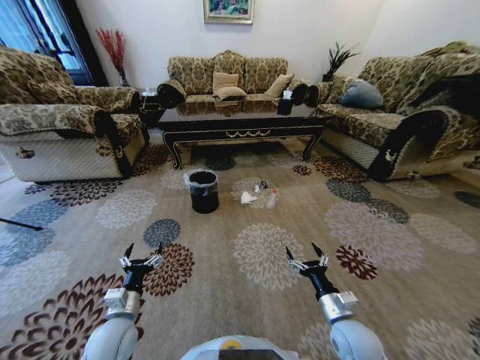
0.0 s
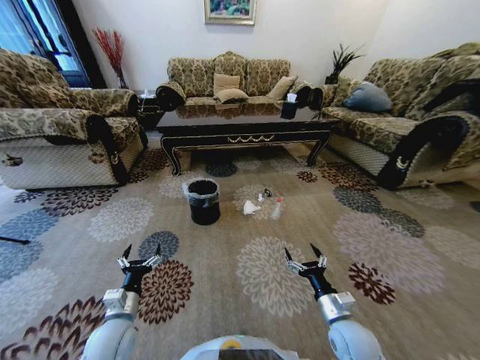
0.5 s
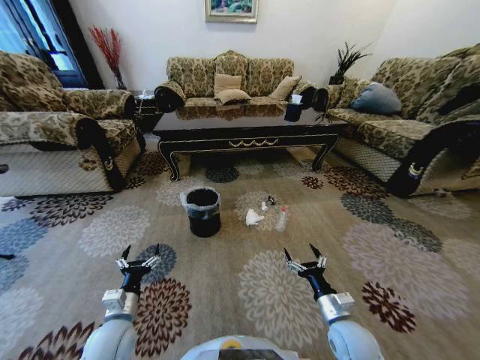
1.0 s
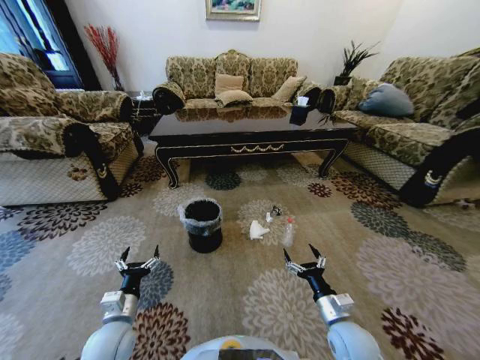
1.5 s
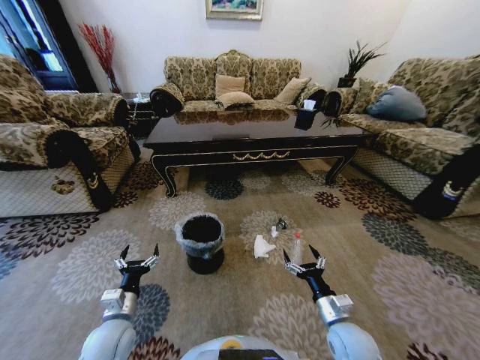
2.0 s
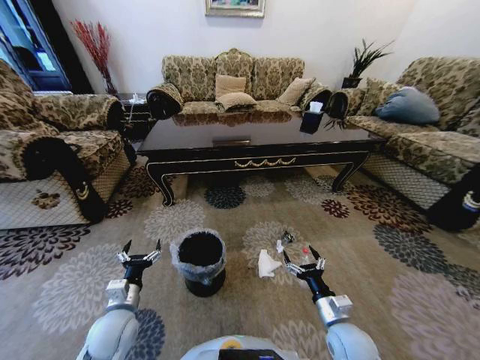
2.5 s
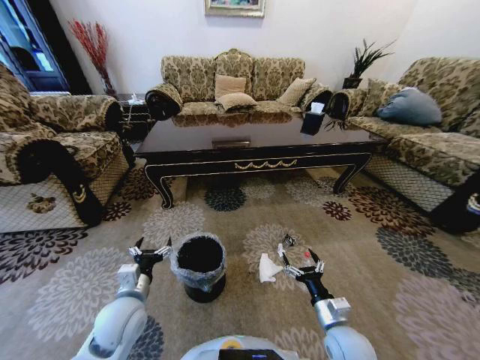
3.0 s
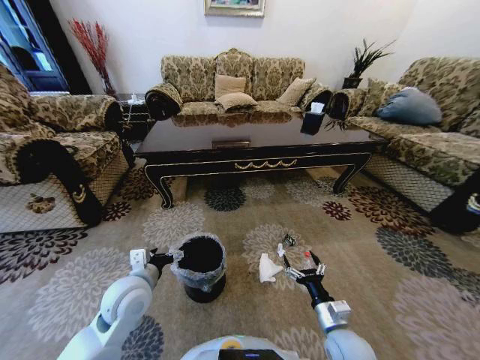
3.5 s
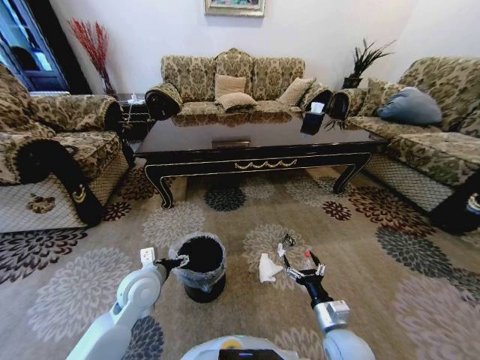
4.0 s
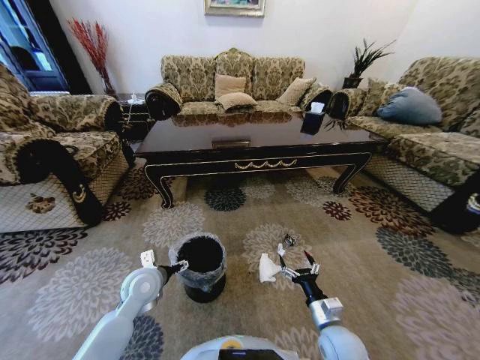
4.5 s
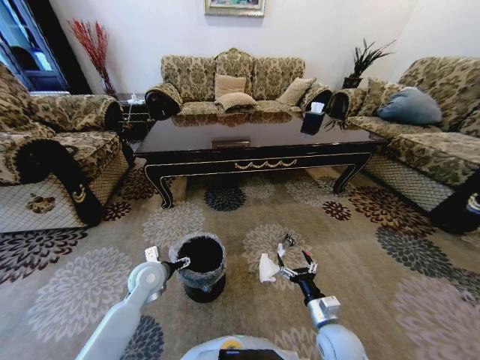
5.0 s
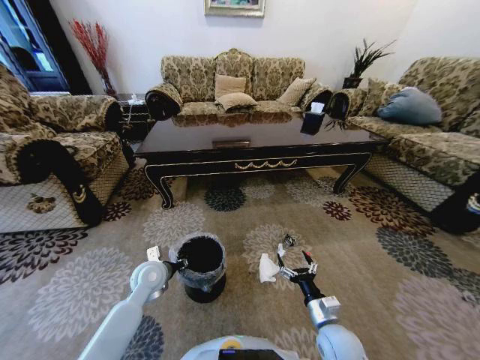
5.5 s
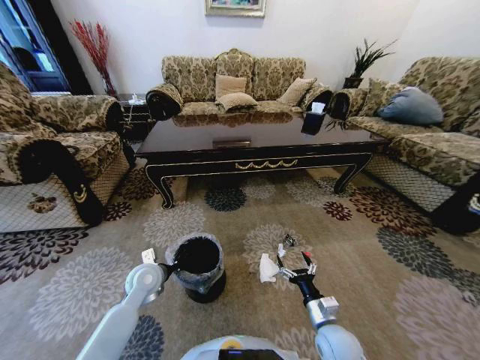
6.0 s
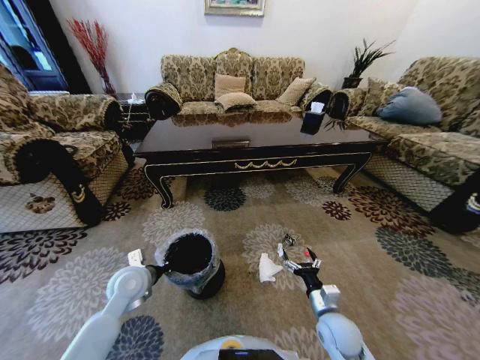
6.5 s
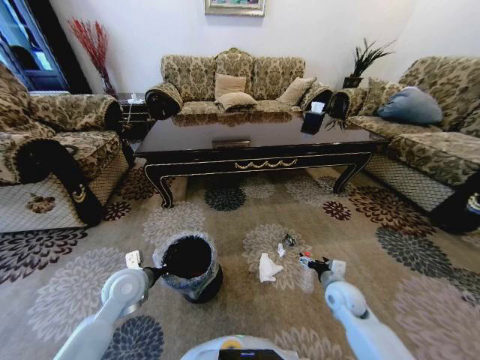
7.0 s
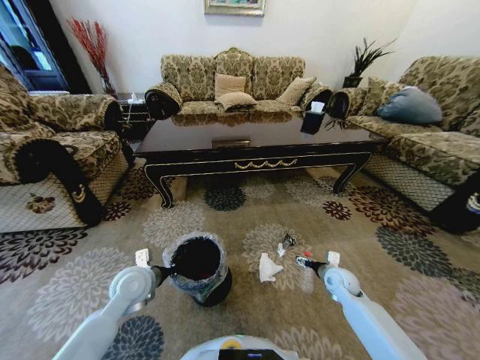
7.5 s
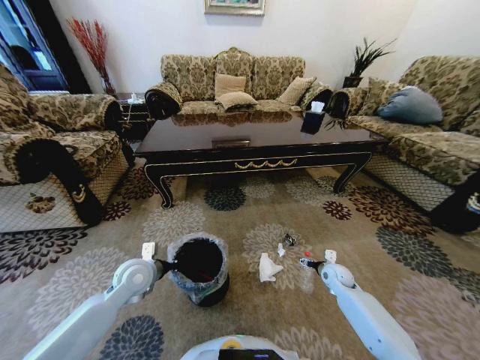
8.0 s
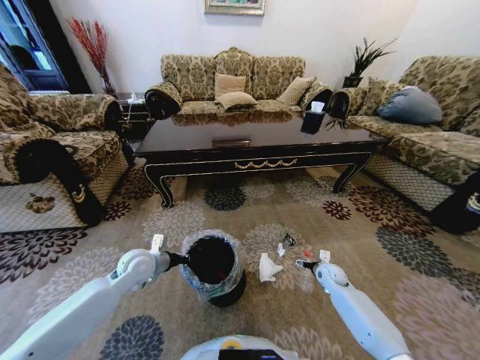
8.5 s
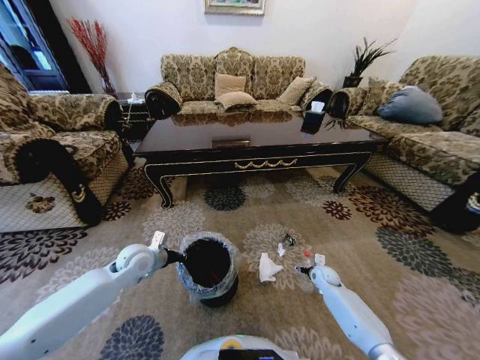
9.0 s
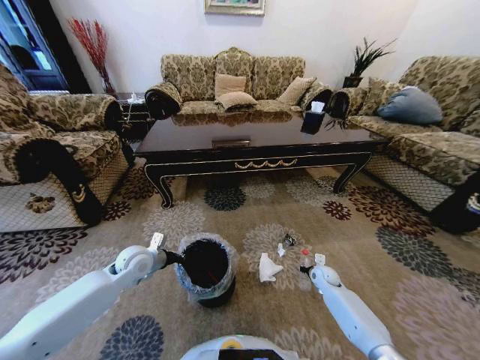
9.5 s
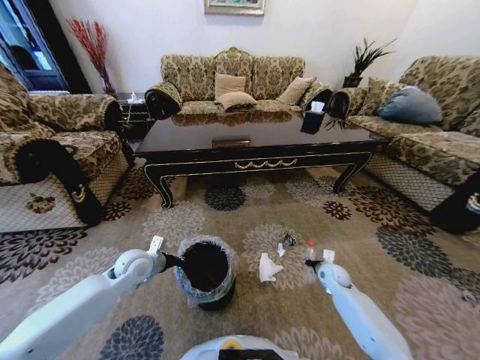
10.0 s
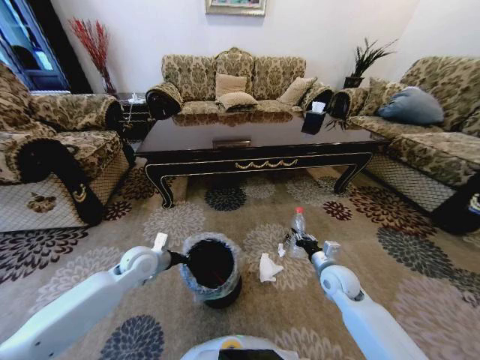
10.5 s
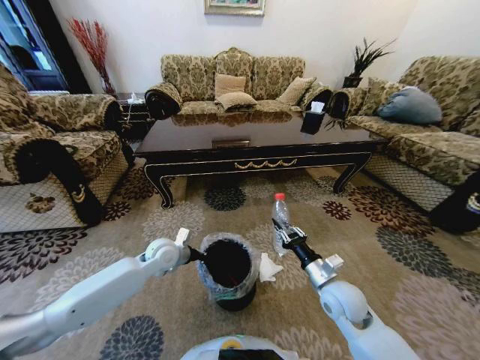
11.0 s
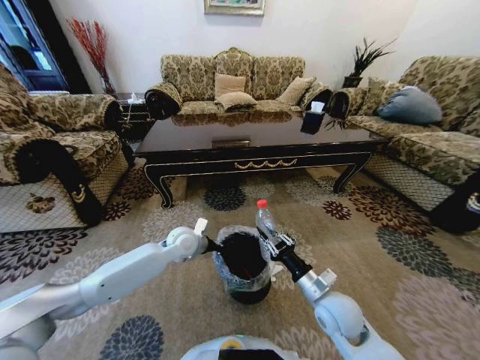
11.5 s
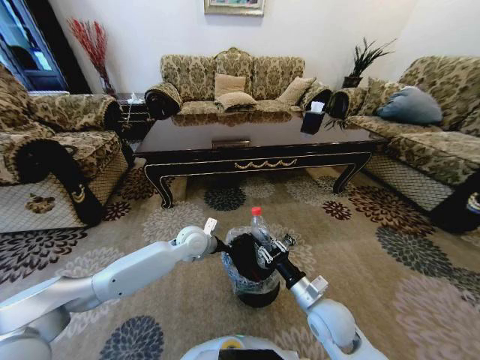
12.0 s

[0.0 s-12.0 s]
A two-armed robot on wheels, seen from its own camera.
Task of the whole recording: Move to the front of the table and pick up the trash from the floor, then place it into the trash bin.
2.0 to 4.0 s: The left gripper shifts about 15 cm forward, upward and to the right.
4.0 to 6.0 s: The left gripper ends up about 5 cm from where it was, and closes.
6.0 to 8.0 s: The right gripper travels forward and to the right by roughly 25 cm.
8.0 to 10.0 s: The right gripper closes.
10.0 to 12.0 s: The left gripper travels to the right and forward by about 15 cm. The right gripper shifts about 25 cm to the left, backward and upward.

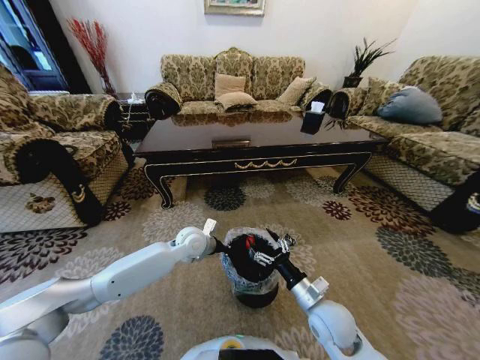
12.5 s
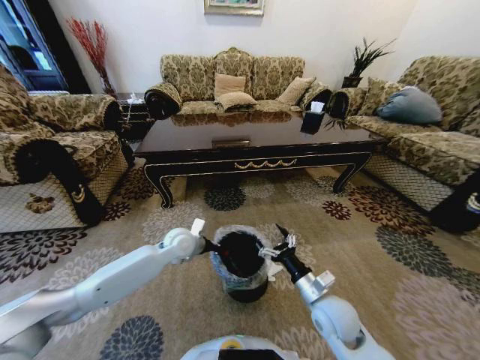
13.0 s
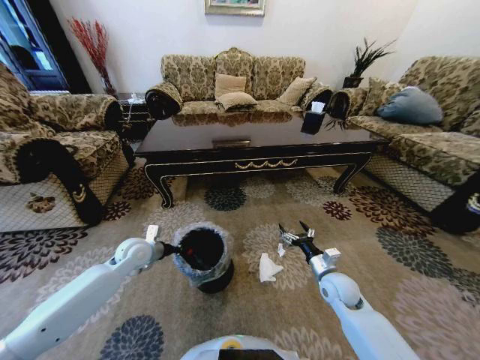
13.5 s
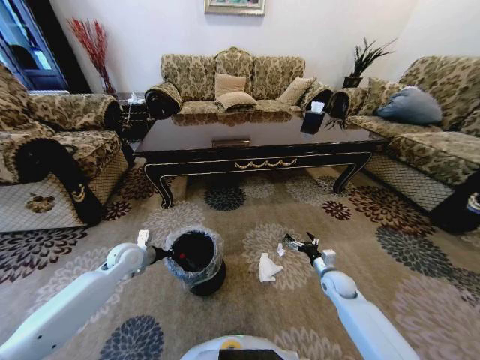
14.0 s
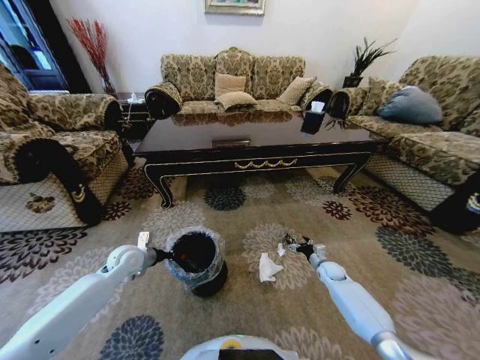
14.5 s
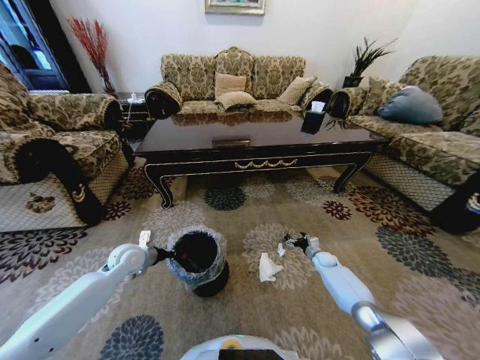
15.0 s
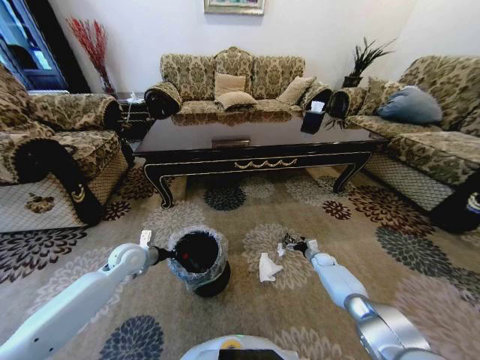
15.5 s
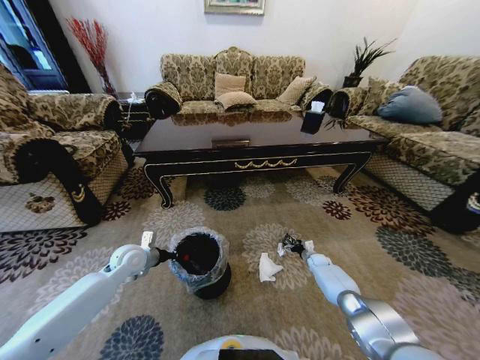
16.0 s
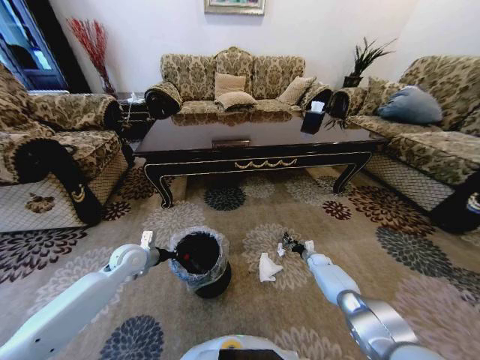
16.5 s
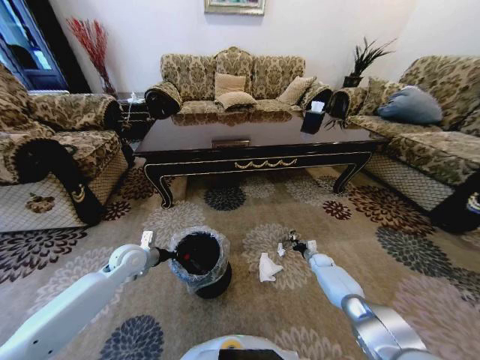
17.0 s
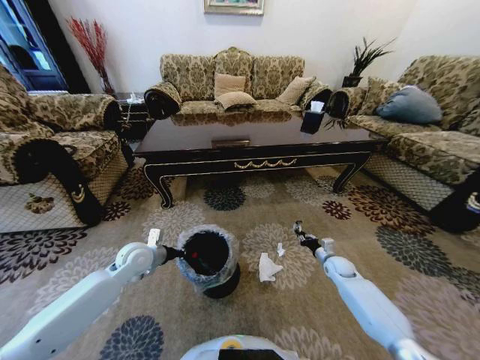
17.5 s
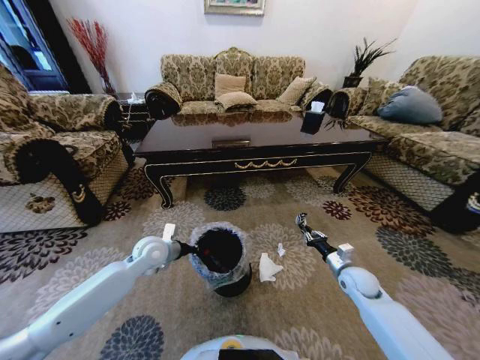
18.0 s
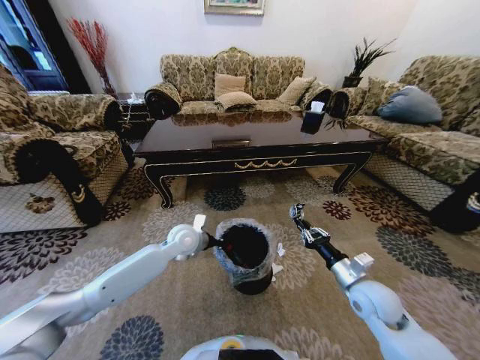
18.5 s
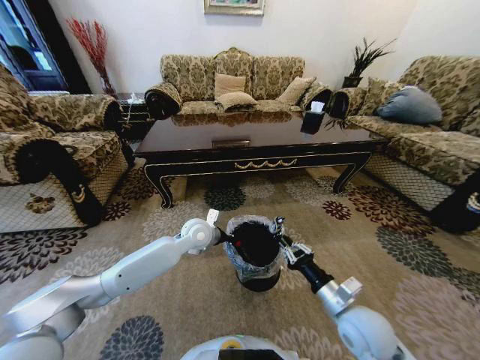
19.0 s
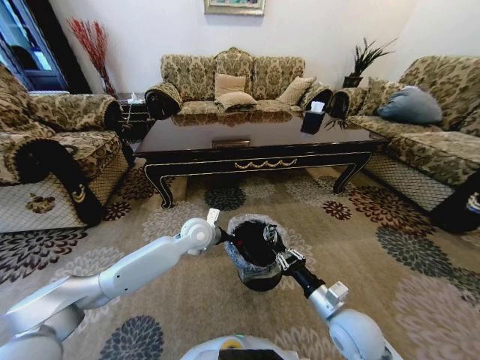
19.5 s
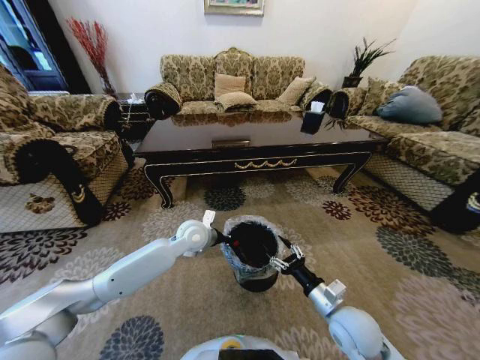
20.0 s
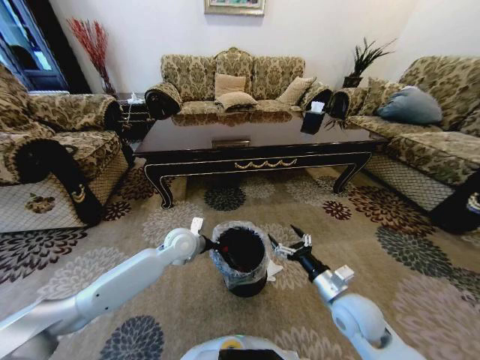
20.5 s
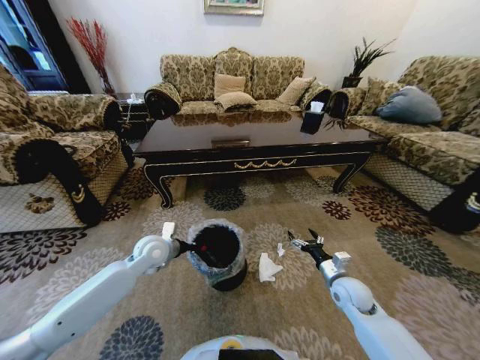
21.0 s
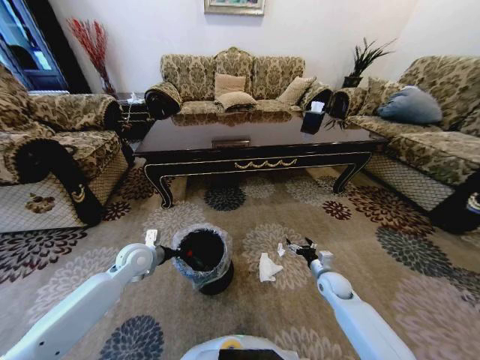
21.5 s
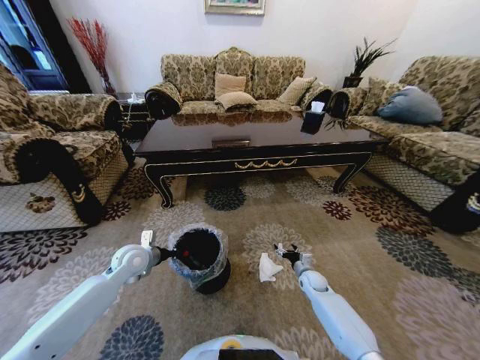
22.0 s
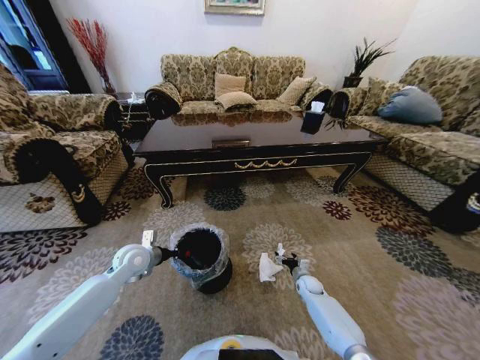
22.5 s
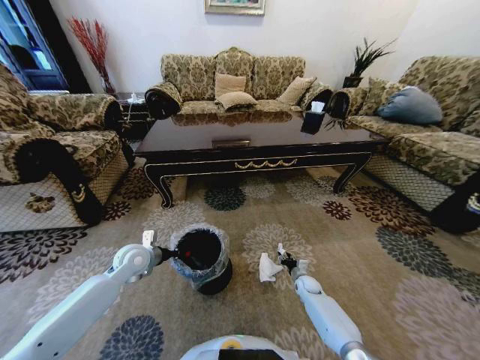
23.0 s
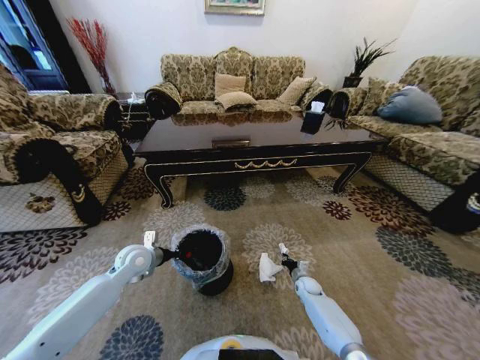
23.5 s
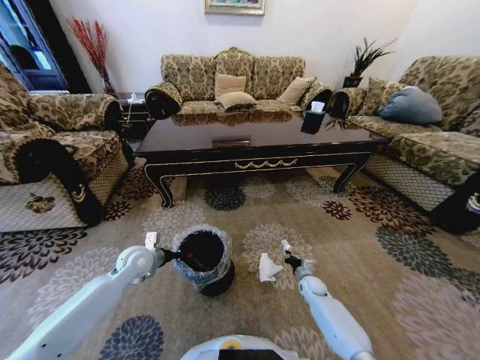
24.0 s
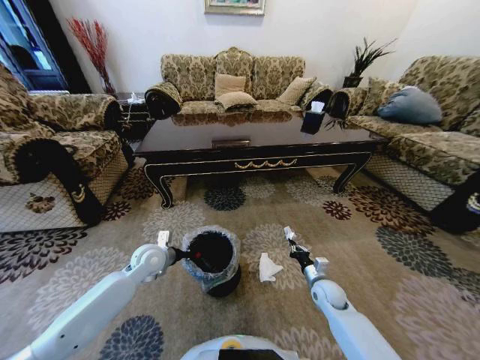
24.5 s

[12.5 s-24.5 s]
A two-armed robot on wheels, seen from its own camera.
Task of the whole recording: Move to the front of the table and pick up the trash from the floor, then place it into the trash bin.
12.5 to 14.5 s: The left gripper goes approximately 20 cm to the left. Meanwhile the right gripper goes approximately 30 cm forward, to the right and downward.
14.5 to 16.5 s: The right gripper shifts roughly 5 cm forward, and closes up.
16.5 to 18.5 s: The right gripper shifts about 35 cm upward and backward; the left gripper heads to the right, covering roughly 15 cm.
18.5 to 20.5 s: The right gripper moves to the left, approximately 5 cm, and opens.
20.5 to 22.5 s: The right gripper goes about 30 cm downward and forward. The left gripper shifts about 15 cm to the left.
22.5 to 24.5 s: The right gripper heads upward and backward, covering some 15 cm, and closes up.

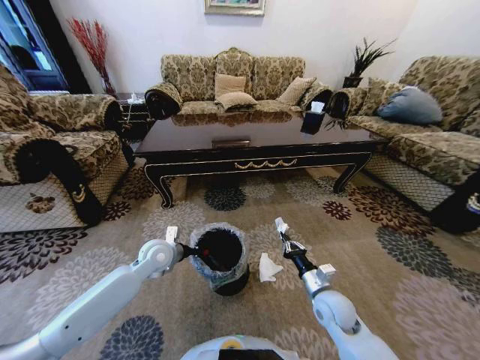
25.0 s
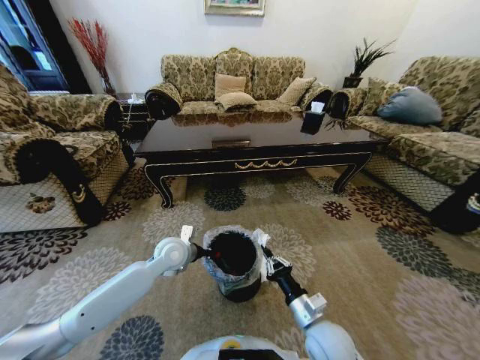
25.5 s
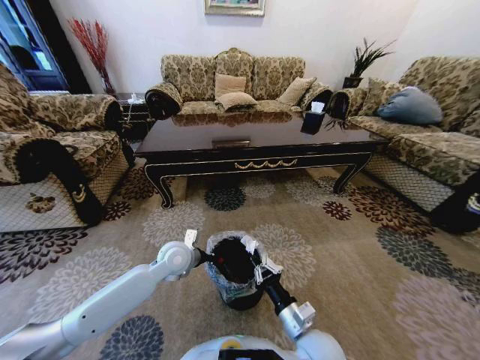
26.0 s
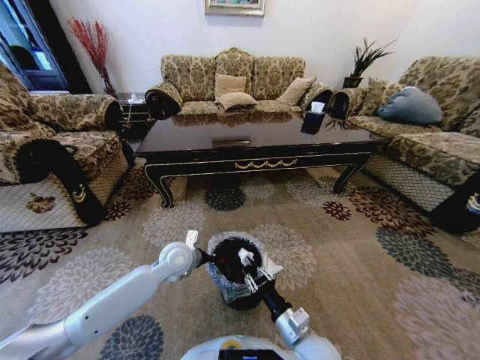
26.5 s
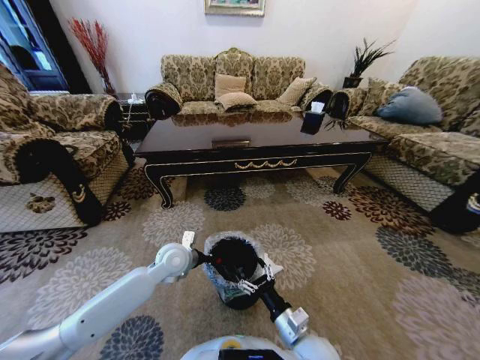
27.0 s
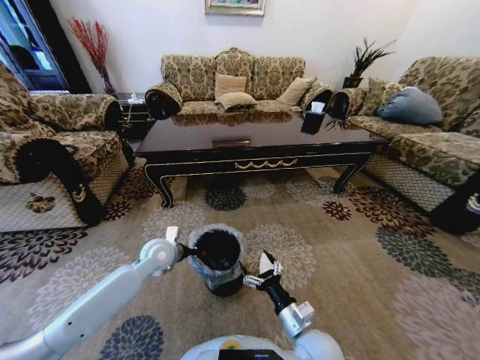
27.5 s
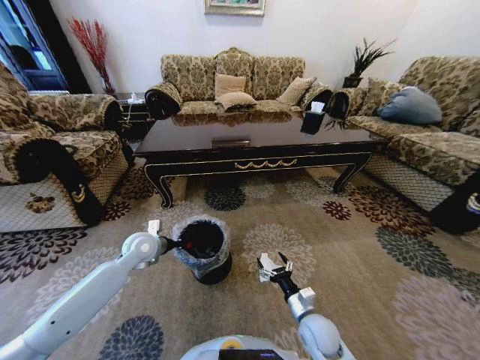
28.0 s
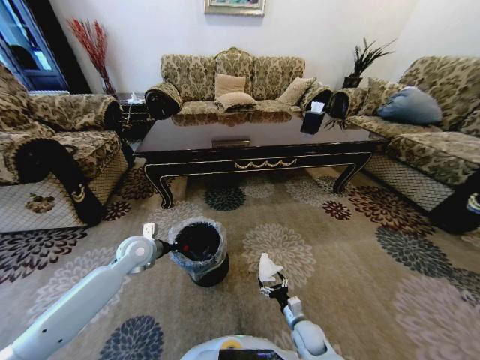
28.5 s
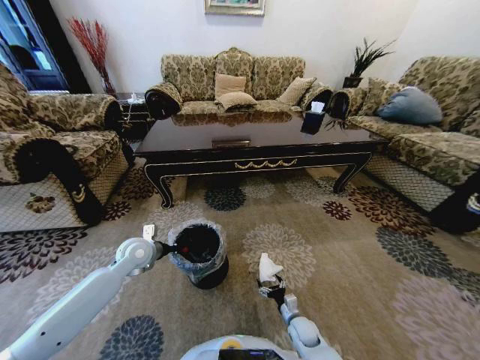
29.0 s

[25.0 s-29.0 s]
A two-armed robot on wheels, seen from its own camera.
Task of the whole recording: Move to the front of the table and pick up the trash from the floor, then place it into the trash bin.
25.0 to 27.0 s: The left gripper shifts approximately 5 cm to the right. Meanwhile the right gripper moves backward and to the left, about 15 cm, and opens up.
27.0 to 29.0 s: The left gripper is displaced to the left by about 10 cm. The right gripper moves downward, approximately 20 cm.
